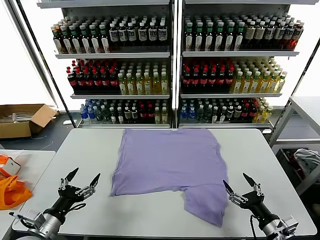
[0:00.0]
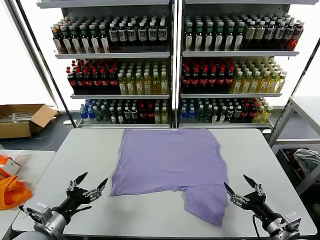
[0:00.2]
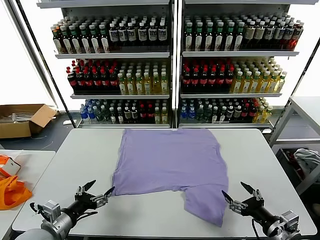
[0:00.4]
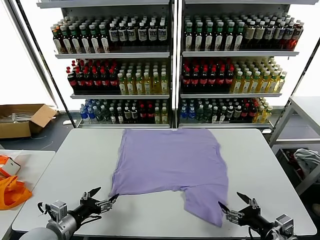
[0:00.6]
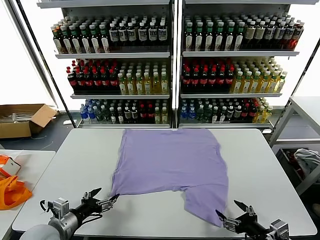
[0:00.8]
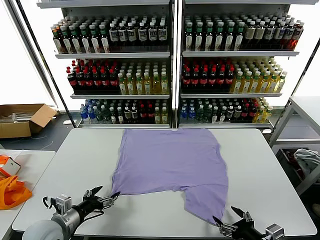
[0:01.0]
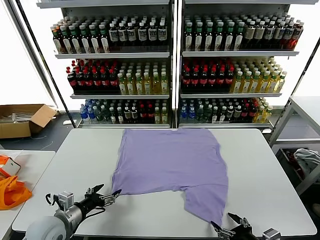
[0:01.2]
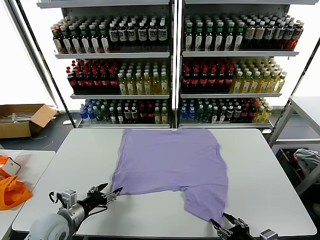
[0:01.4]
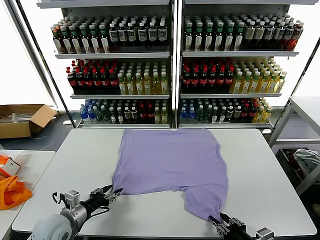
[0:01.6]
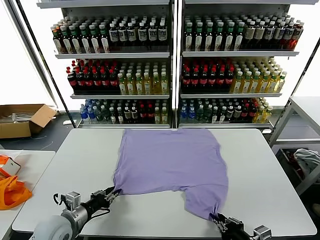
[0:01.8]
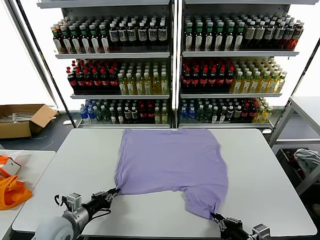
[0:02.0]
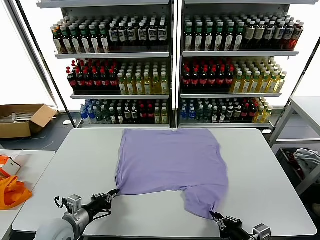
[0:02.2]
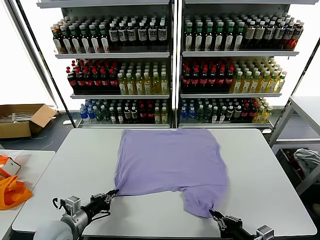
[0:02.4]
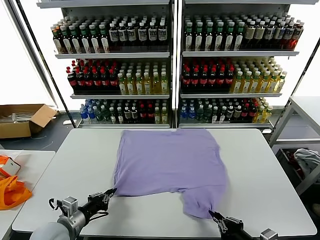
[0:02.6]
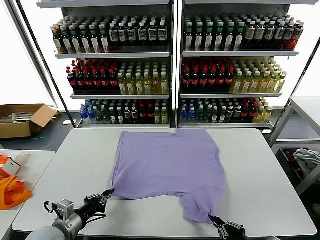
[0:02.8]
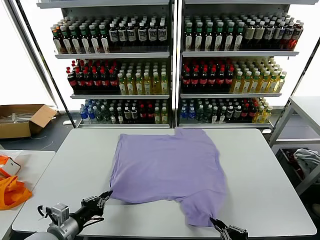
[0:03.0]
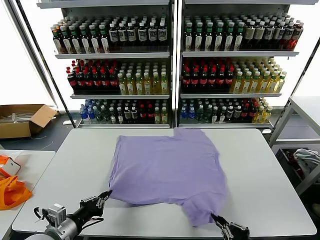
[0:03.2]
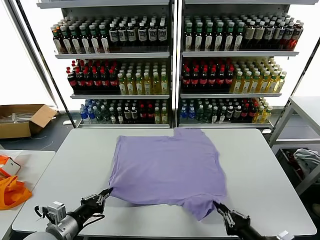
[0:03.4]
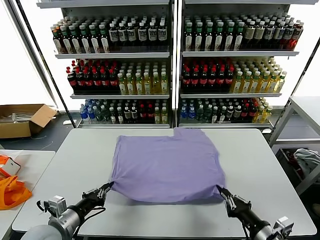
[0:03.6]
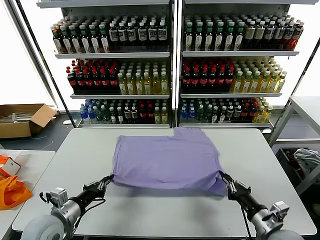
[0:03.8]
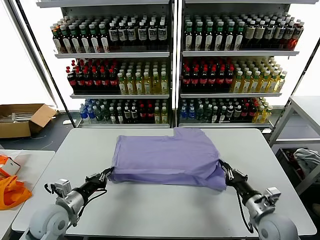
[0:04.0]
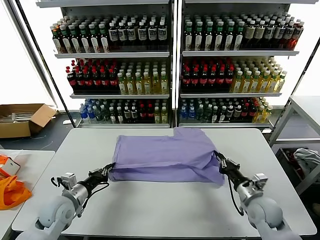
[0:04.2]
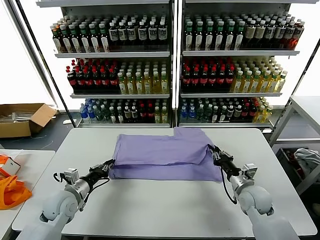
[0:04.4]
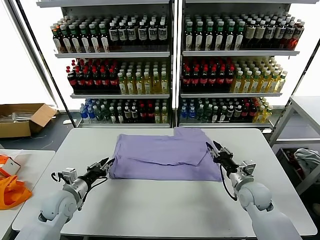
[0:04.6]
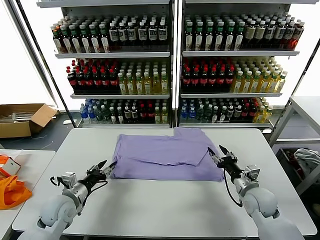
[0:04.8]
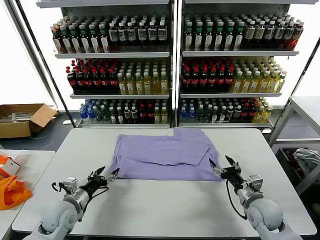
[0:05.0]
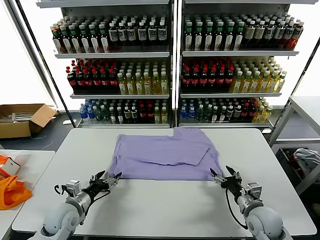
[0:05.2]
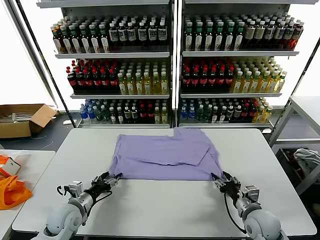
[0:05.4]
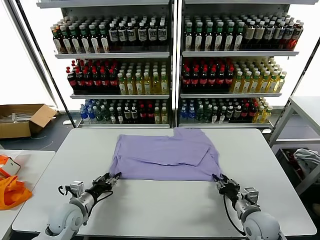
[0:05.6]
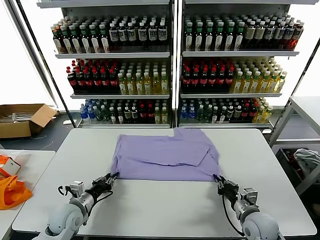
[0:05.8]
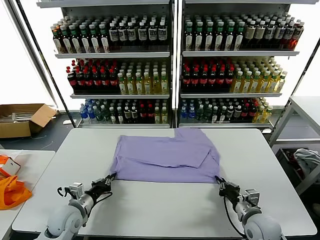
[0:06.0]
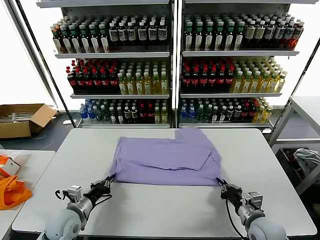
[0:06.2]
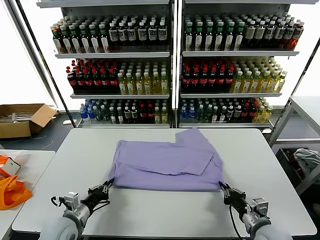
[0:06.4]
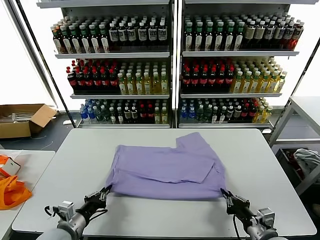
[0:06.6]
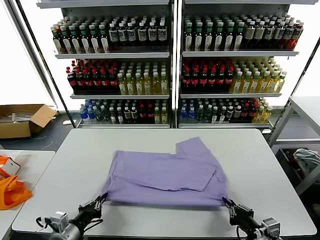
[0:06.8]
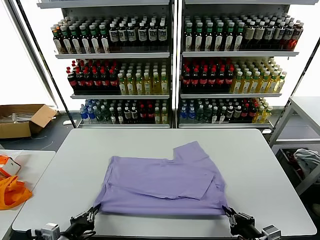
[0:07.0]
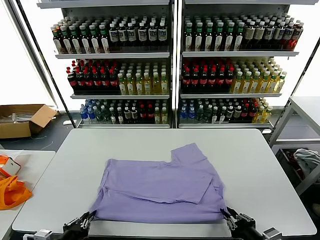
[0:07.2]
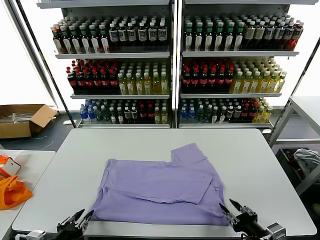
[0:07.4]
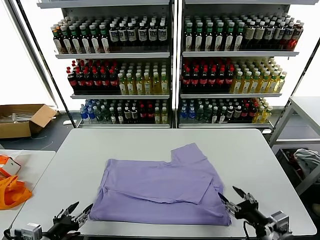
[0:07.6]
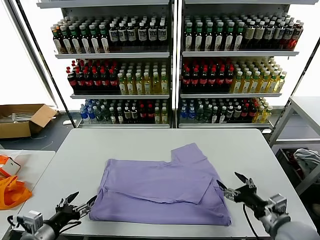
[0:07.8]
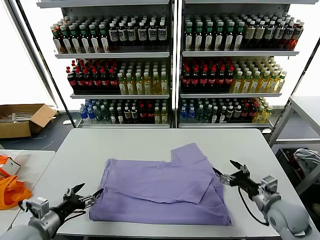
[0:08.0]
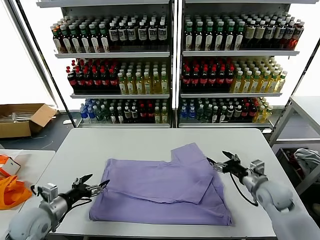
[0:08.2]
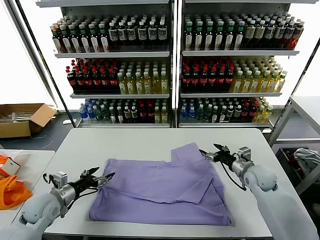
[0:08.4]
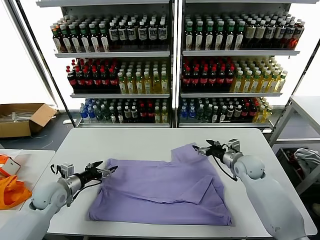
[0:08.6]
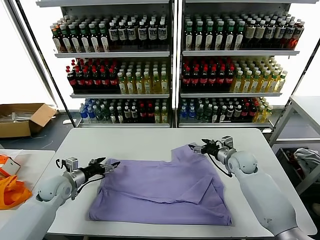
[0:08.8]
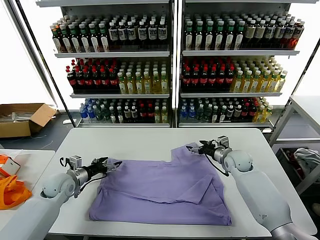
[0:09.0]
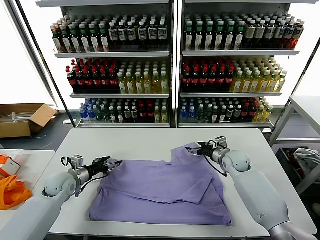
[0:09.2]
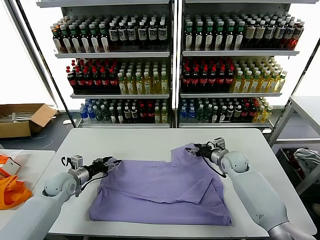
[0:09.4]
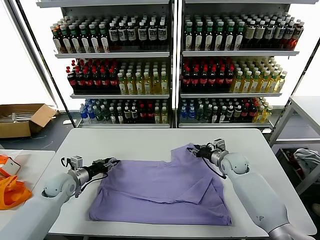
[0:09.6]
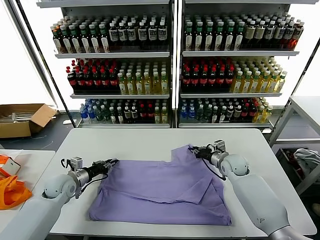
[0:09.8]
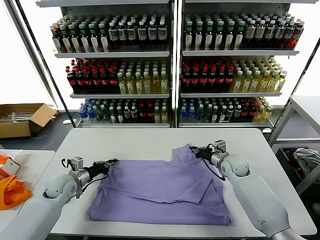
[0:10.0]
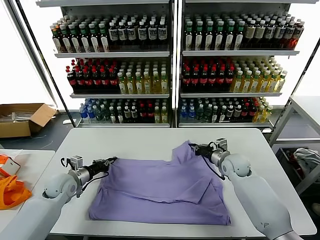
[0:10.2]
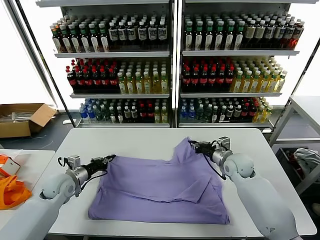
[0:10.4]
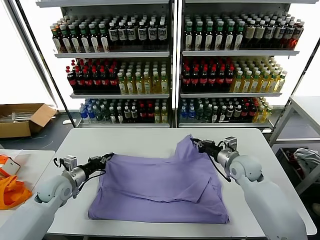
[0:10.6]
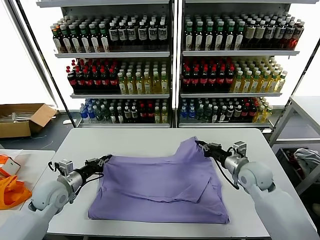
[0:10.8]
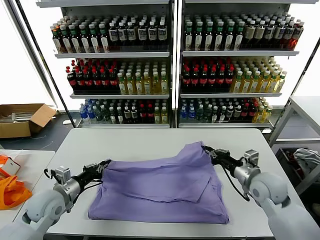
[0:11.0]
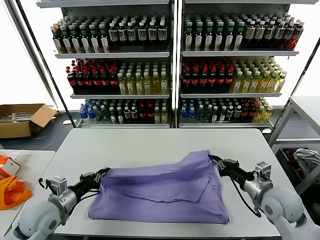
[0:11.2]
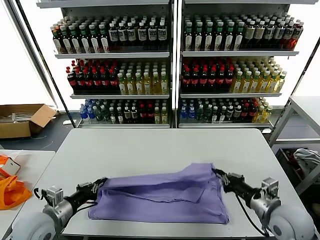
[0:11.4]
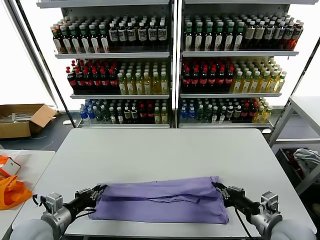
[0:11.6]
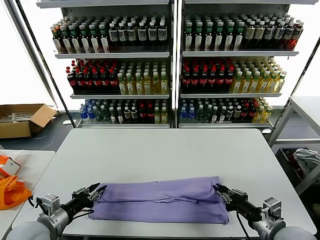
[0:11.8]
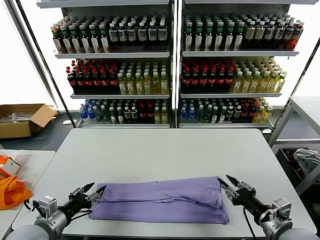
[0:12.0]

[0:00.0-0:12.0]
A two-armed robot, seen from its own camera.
Task of the whole recording: fold and organize the clothes.
Step, 0.0 to 2.0 s: use both grippers simultaneously to clamp the lower edge of the clothing fabric.
Step, 2.2 to 4.6 s: use both grippers to drag the lower edge of the fabric forward and fold it over the upper edge.
Step, 4.8 to 7.4 s: Drag the clothes downward with both gripper.
Step, 7.6 to 9.8 s: use both grippers simultaneously to clamp the upper edge of the clothing fabric.
Step, 10.0 to 11.8 s: use both grippers to drag the upper edge of the fabric backward and fold it over the lower edge.
1.6 to 3.0 s: The left gripper travels backward by about 5 cm, and closes its fingers; the right gripper changes place by some 5 cm.
3.0 to 4.4 s: The left gripper shifts approximately 15 cm forward; the right gripper moves forward, approximately 25 cm.
4.4 to 6.0 s: The right gripper travels backward by about 10 cm, and opens, then closes again; the left gripper shifts by some 5 cm, and opens, then closes again.
6.0 to 7.6 s: The left gripper goes some 15 cm backward and upward, and opens. Meanwhile the right gripper heads upward and backward, covering some 10 cm, and opens up.
7.6 to 9.0 s: Both grippers travel together forward, some 30 cm.
9.0 to 10.4 s: The left gripper closes its fingers, while the right gripper shifts by about 5 cm, and closes its fingers.
10.4 to 12.0 s: Both grippers move backward, roughly 25 cm. The right gripper opens. Meanwhile the left gripper opens its fingers.

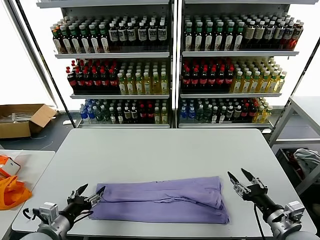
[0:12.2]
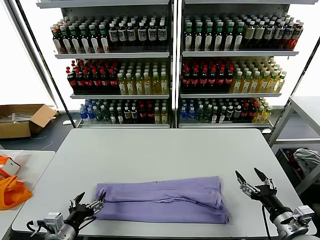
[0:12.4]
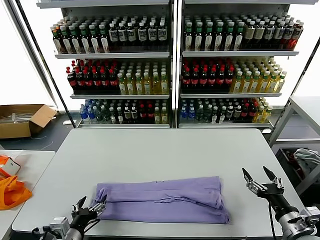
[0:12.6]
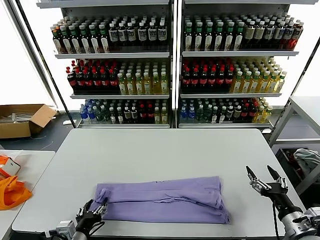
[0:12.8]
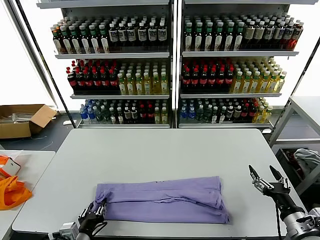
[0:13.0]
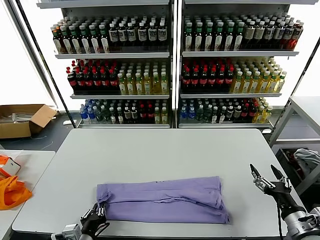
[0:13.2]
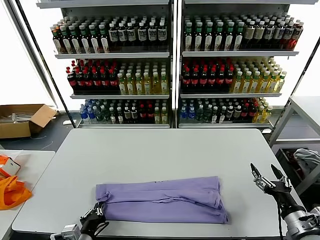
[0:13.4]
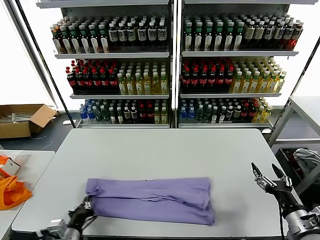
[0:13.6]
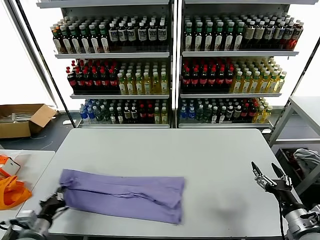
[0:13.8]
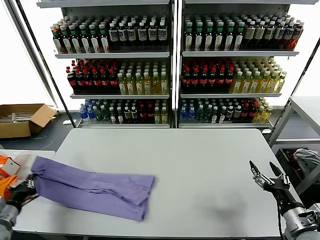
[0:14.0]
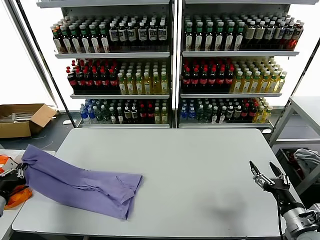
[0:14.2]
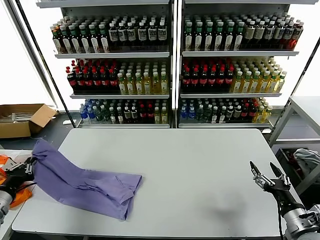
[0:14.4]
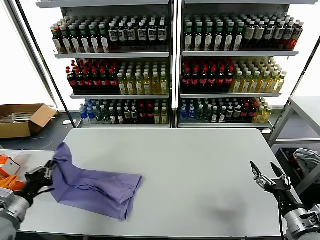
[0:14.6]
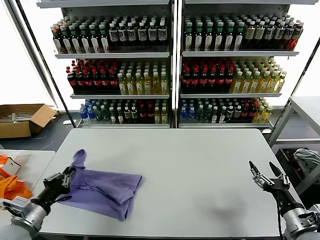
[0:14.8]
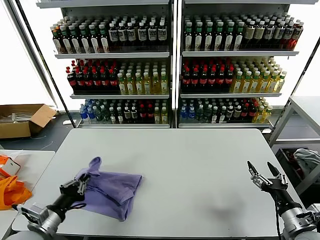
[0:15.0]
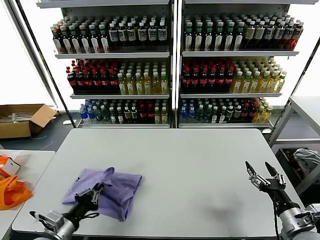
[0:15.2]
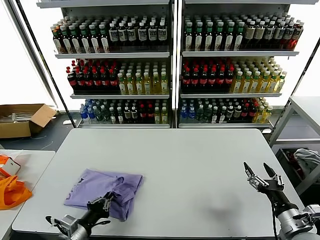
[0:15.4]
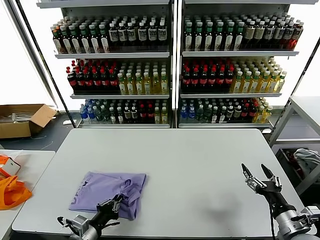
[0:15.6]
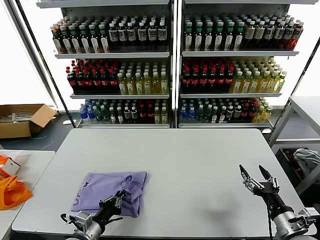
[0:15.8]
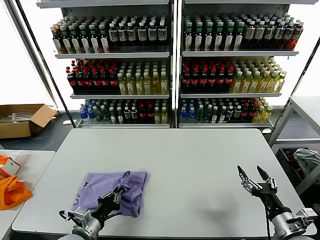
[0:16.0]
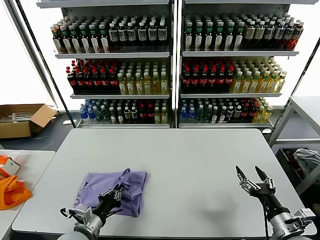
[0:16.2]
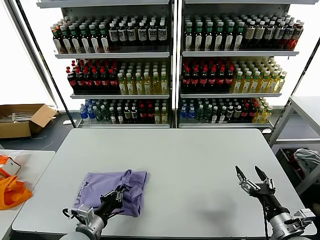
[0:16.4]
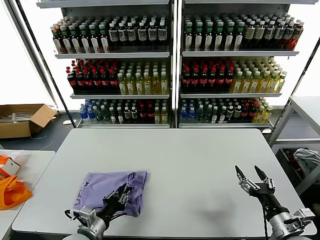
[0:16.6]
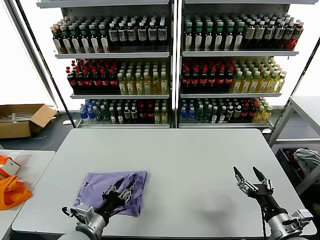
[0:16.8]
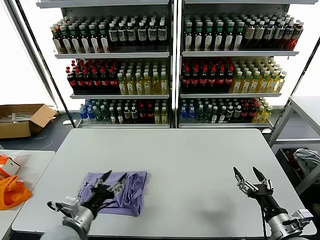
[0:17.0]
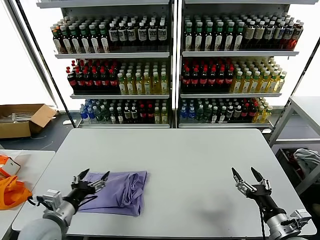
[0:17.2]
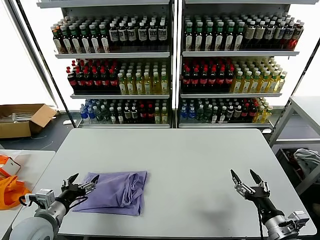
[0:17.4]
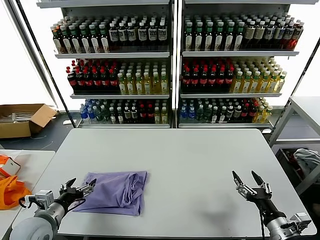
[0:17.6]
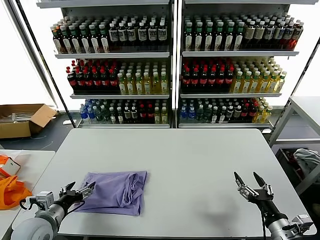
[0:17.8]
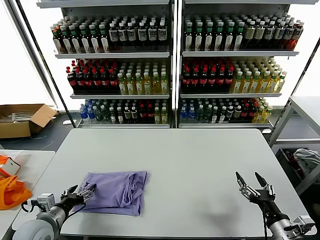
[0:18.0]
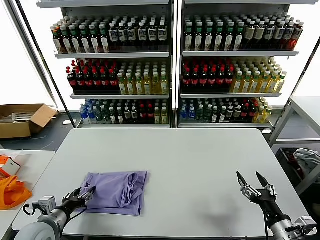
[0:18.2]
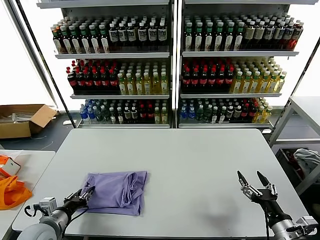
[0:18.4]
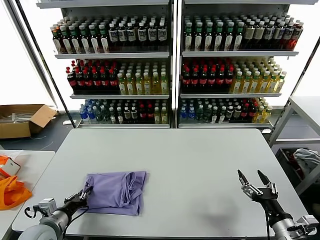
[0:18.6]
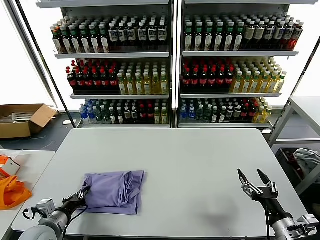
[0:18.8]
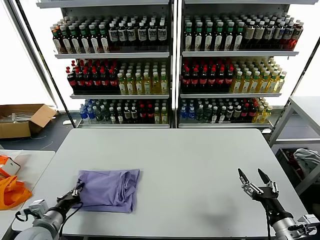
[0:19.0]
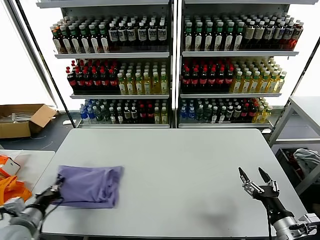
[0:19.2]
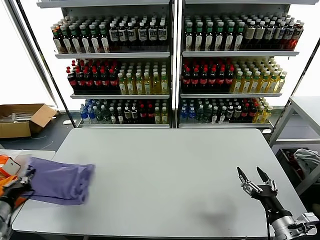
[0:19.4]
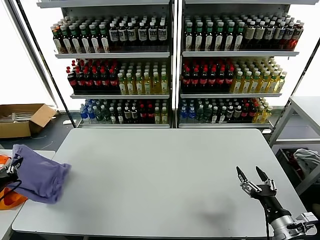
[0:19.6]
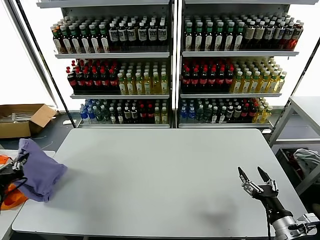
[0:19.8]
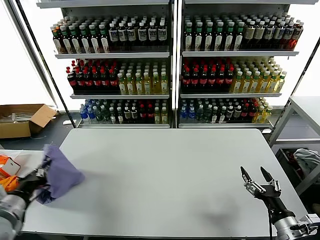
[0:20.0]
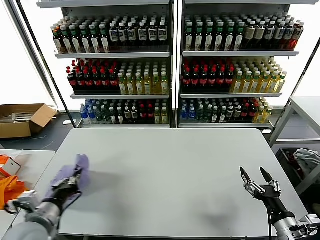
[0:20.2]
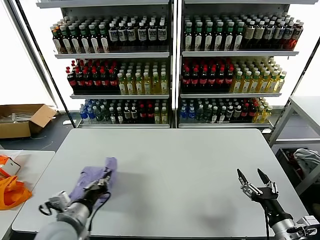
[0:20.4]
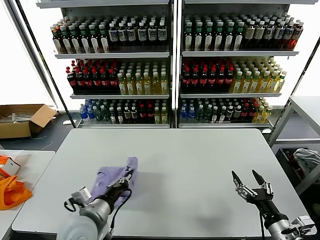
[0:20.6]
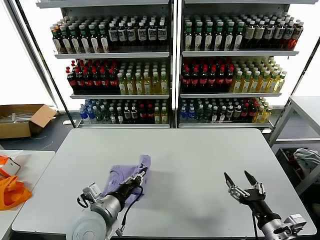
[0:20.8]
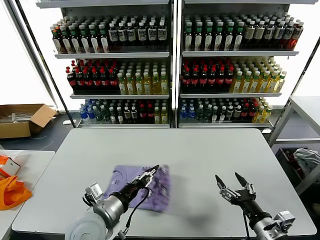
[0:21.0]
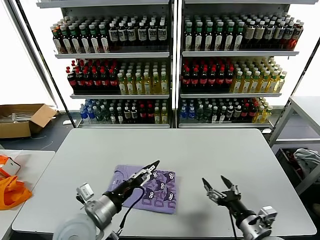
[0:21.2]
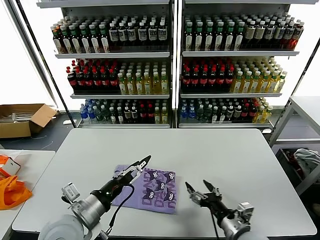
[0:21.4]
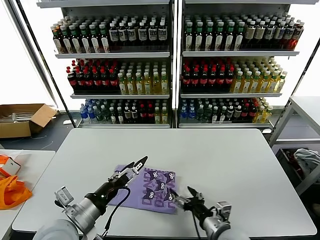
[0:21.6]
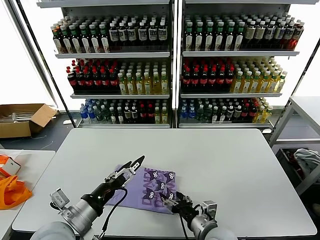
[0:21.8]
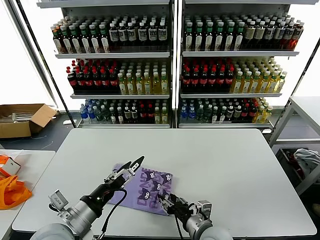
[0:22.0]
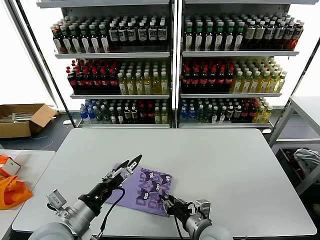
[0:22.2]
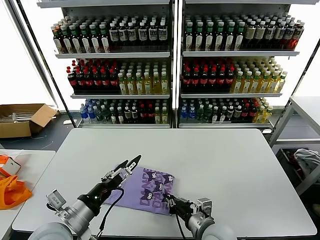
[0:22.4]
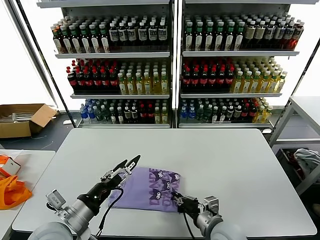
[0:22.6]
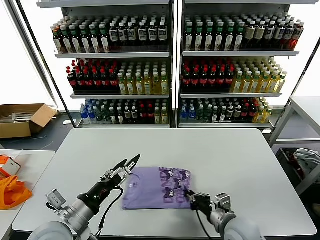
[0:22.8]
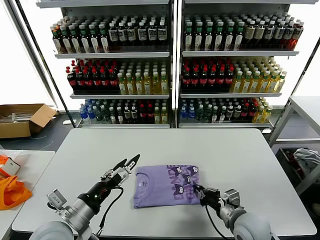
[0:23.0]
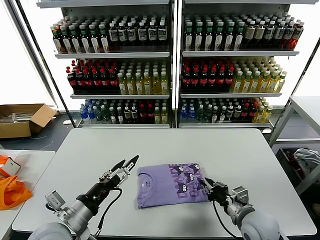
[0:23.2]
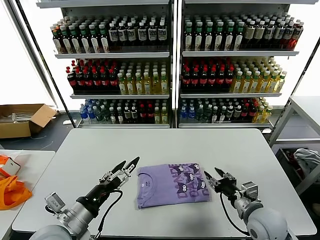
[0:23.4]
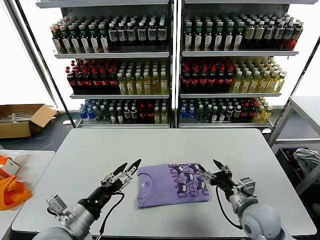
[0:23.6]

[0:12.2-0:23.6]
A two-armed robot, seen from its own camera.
Task of the whole recording: fold and organize the clothes.
Step, 12.2 to 13.2 s: use the left gripper to clamp the left edge of the fabric.
Step, 13.6 to 16.8 s: use the left gripper to drag the left edge of the fabric to the left and folds it over the right edge.
Step, 17.0 to 21.2 s: Flip the folded clothes over with left gripper.
12.2 to 13.6 s: The left gripper shifts about 5 cm downward, travels to the right and back again, about 10 cm each way, and closes its fingers.
13.6 to 15.0 s: The left gripper travels upward by roughly 5 cm, and travels to the left and back again, roughly 20 cm each way.
15.0 to 16.4 s: The left gripper is displaced to the right and downward by about 10 cm.
16.4 to 17.8 s: The left gripper shifts about 10 cm to the left, and opens up.
17.8 to 19.4 s: The left gripper shifts some 10 cm to the left and upward, and closes its fingers.
19.4 to 20.8 s: The left gripper travels to the right by some 30 cm.
20.8 to 22.2 s: The right gripper moves to the left, about 20 cm, and closes. Meanwhile the left gripper shifts approximately 5 cm to the left, and opens.
22.2 to 23.6 s: The right gripper shifts some 15 cm to the right, and closes, then reopens.
